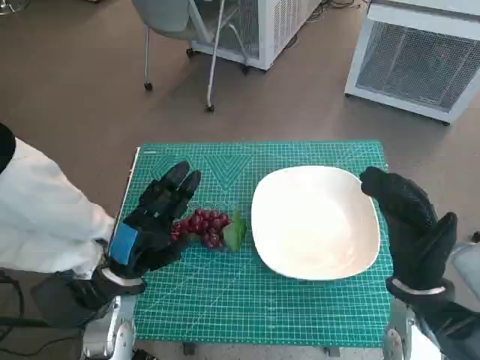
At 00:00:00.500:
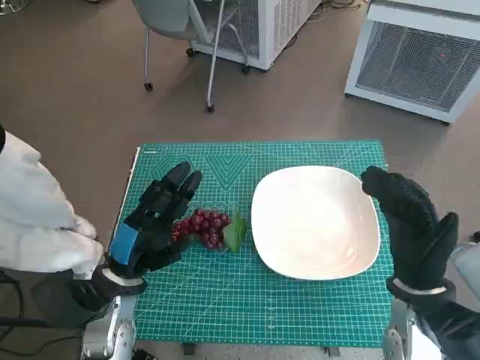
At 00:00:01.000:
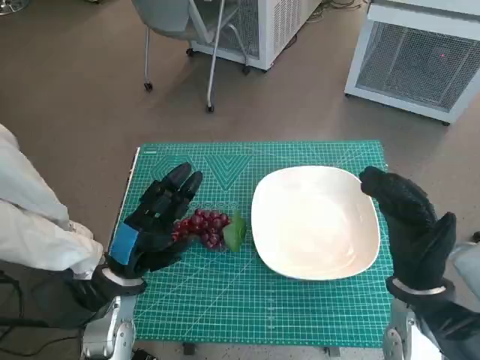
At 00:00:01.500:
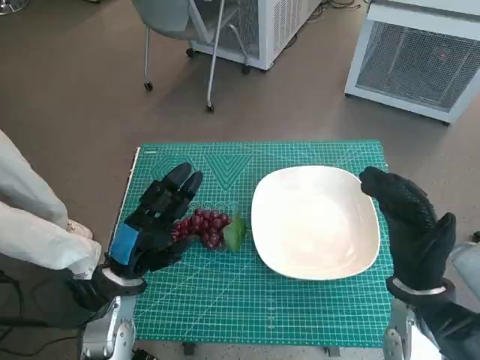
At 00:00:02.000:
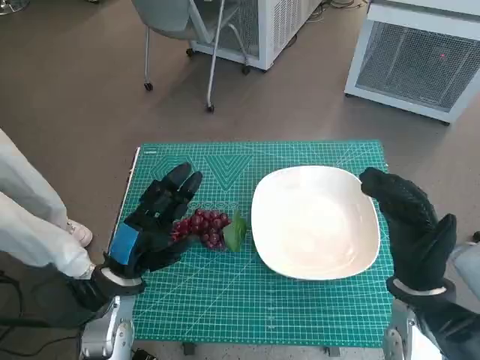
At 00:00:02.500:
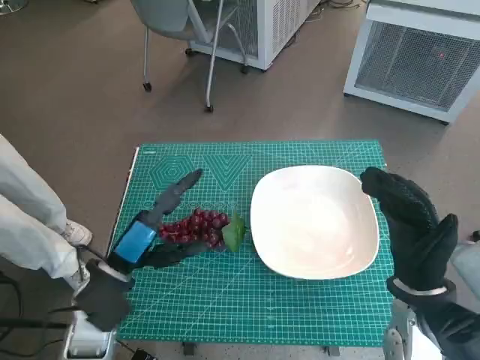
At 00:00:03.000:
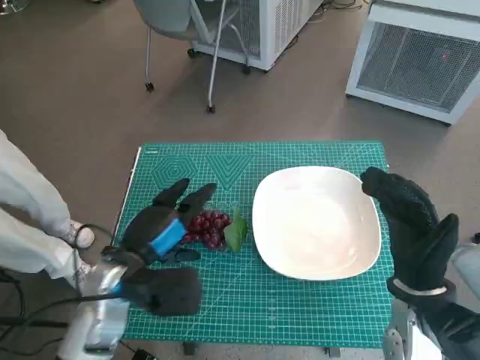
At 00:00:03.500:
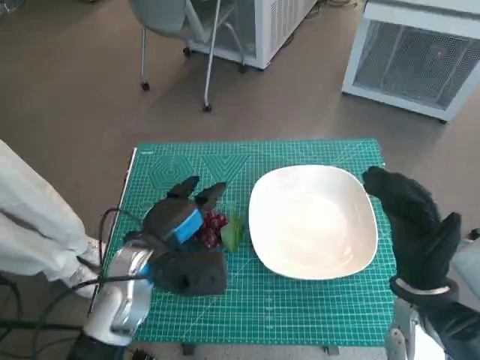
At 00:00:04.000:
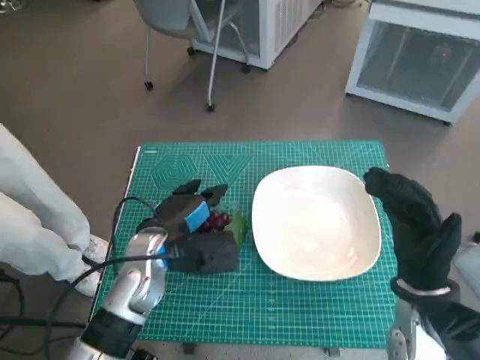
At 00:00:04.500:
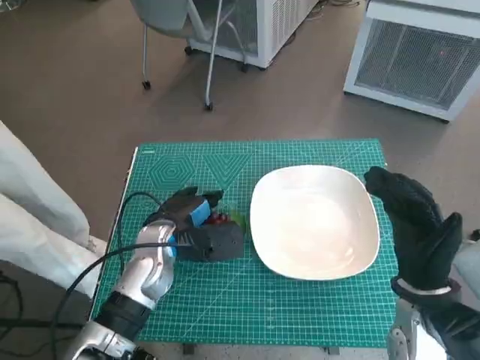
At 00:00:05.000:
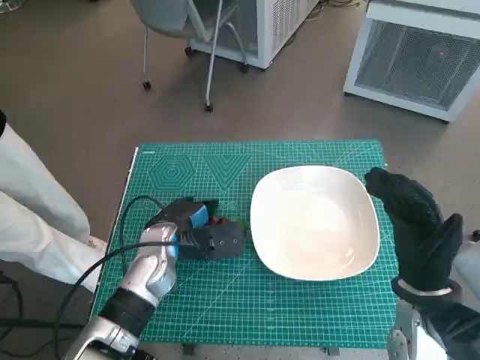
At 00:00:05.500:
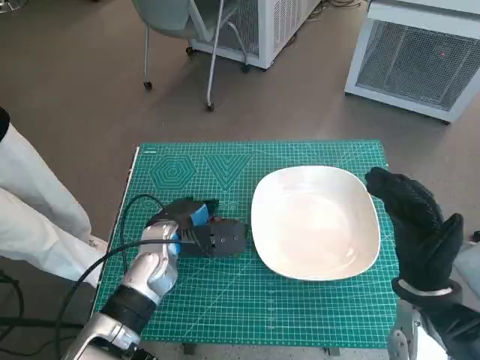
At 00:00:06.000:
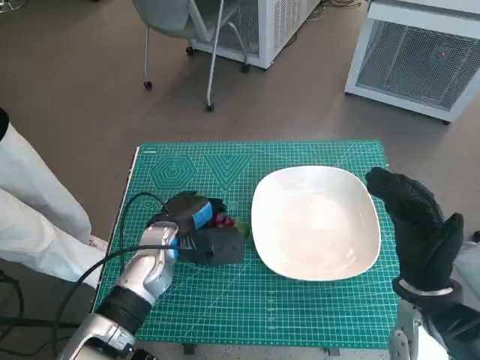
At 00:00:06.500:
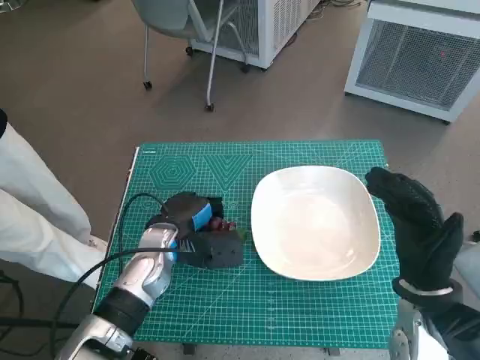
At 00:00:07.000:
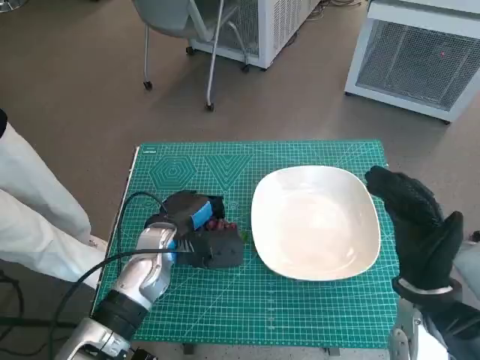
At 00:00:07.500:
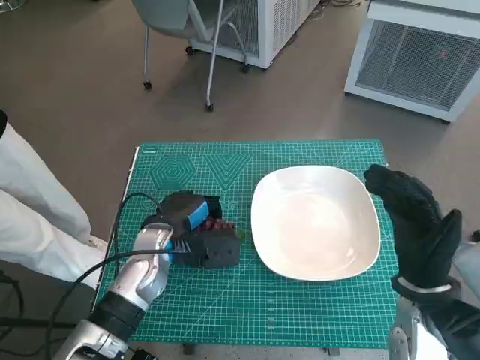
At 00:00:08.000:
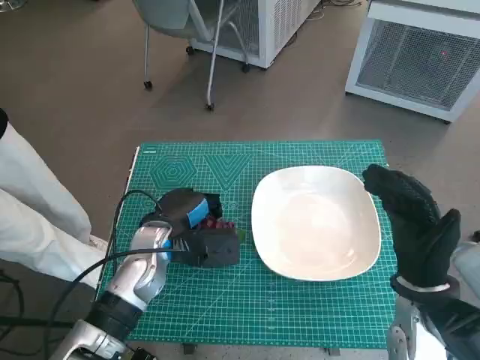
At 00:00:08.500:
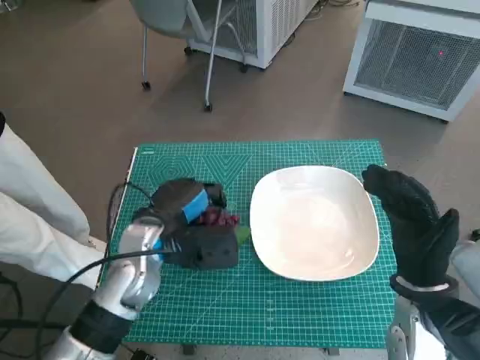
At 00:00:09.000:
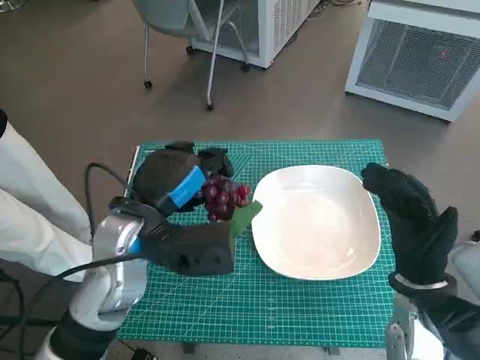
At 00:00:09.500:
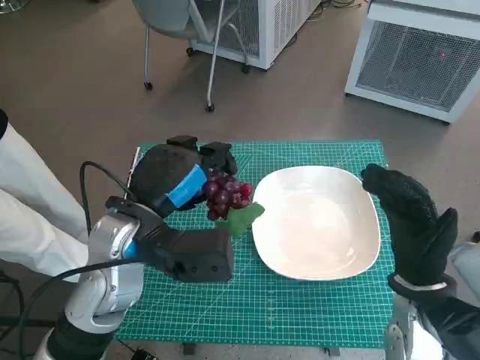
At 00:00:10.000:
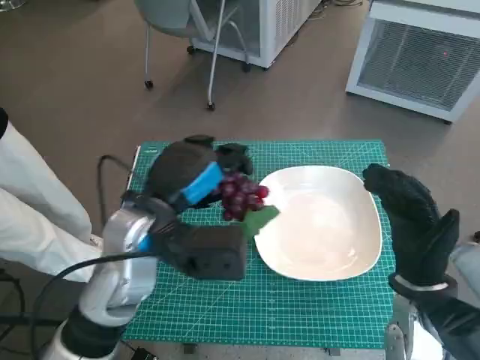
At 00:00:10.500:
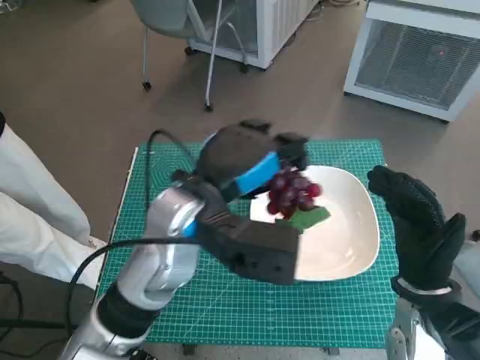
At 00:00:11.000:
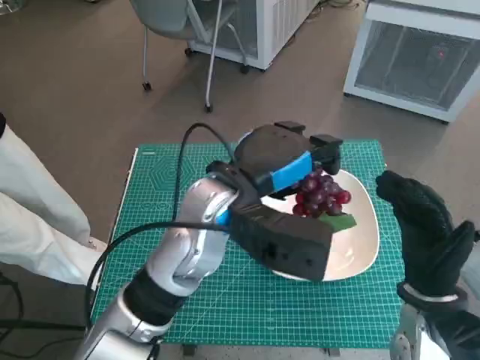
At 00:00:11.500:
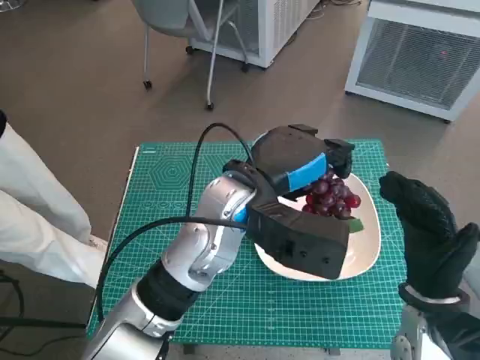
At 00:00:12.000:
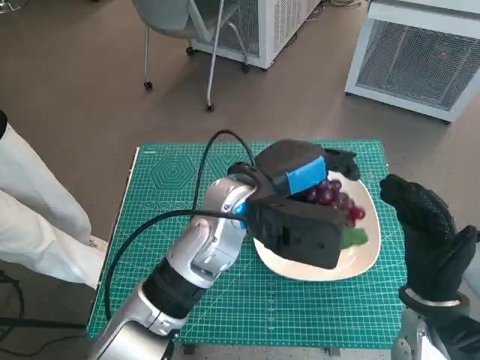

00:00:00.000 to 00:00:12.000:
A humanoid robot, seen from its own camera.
Task of the whole recording: Pick up the grapes and put them on the plate.
Step, 00:00:00.000 to 00:00:05.500: Grasp the grapes with left hand.
00:00:02.000 to 00:00:04.000: The left hand shifts some 10 cm forward and to the right.
00:00:04.000 to 00:00:06.000: The hands stay close to where they were, moving slightly.
00:00:06.000 to 00:00:08.000: The two hands keep their place.
00:00:08.000 to 00:00:10.000: The left hand heads upward, covering approximately 10 cm.
00:00:10.000 to 00:00:12.000: The left hand travels to the right by about 10 cm.

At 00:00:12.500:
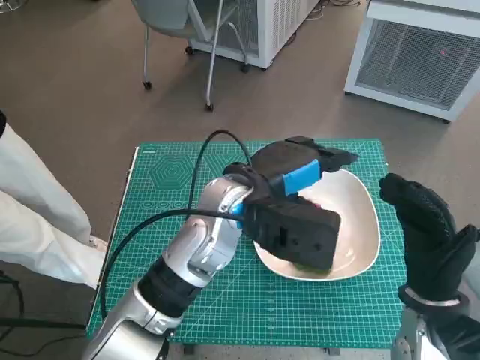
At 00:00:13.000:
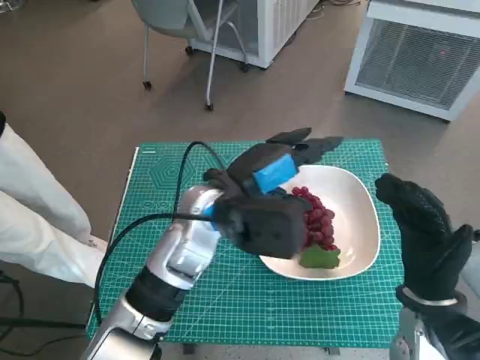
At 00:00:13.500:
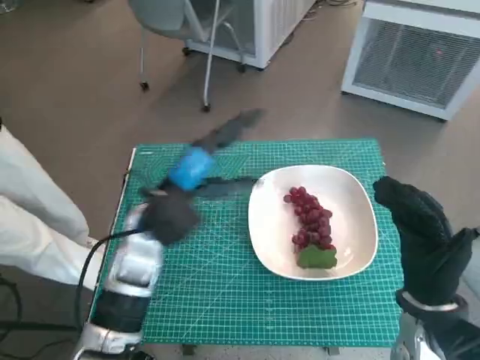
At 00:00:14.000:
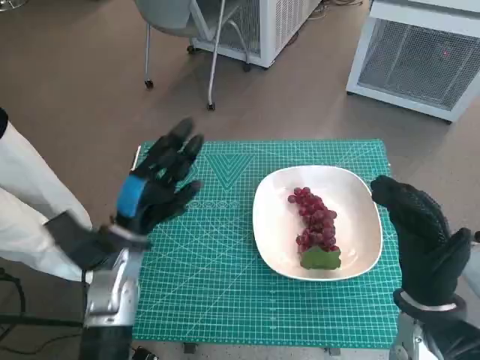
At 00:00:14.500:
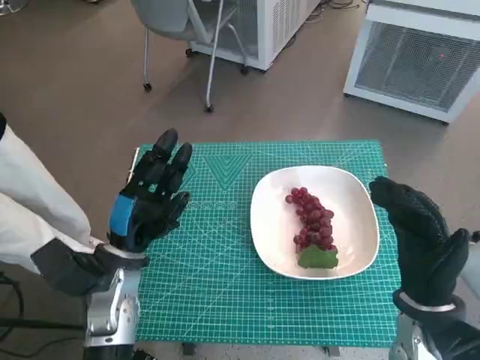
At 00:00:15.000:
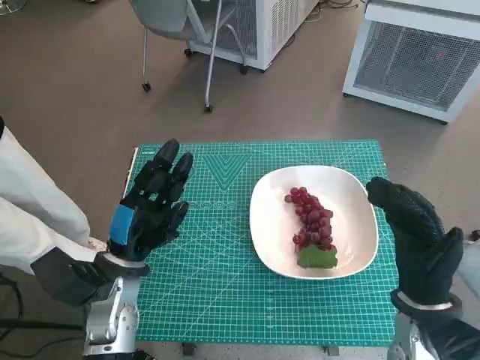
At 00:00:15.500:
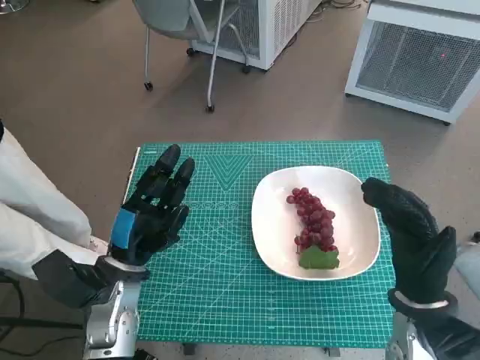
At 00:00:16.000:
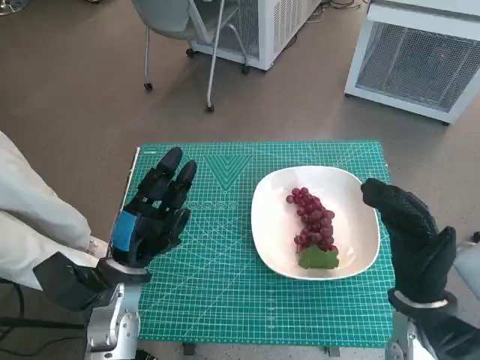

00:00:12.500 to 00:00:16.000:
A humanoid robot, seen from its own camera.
Task of the whole recording: Pick up the grapes and put them on the plate.
00:00:12.500 to 00:00:14.500: The left hand moves to the left and downward, some 20 cm.
00:00:14.500 to 00:00:16.000: The hands move only a little.

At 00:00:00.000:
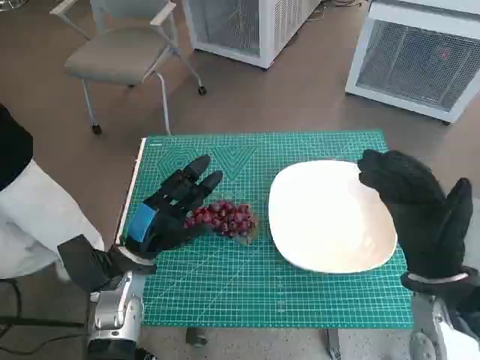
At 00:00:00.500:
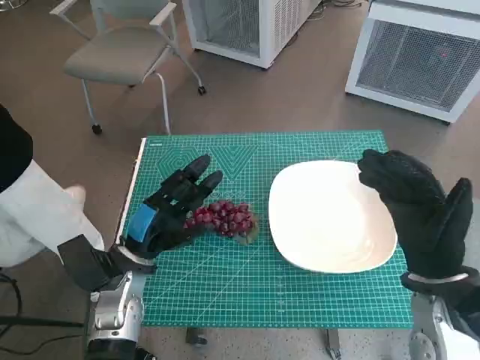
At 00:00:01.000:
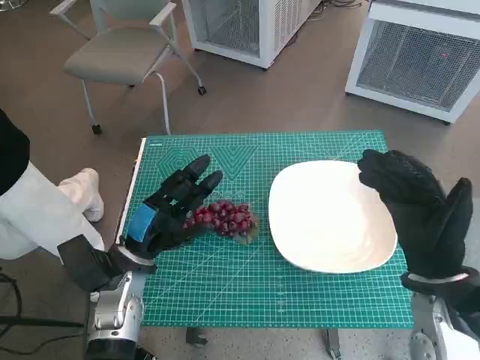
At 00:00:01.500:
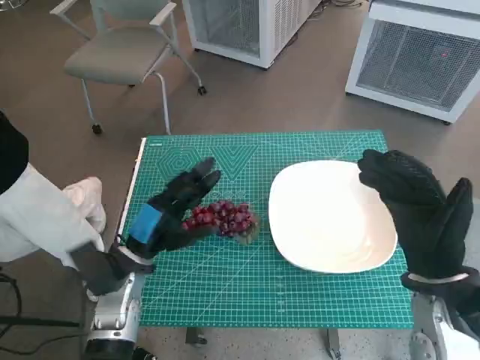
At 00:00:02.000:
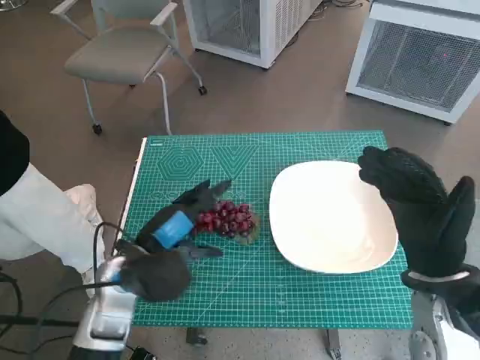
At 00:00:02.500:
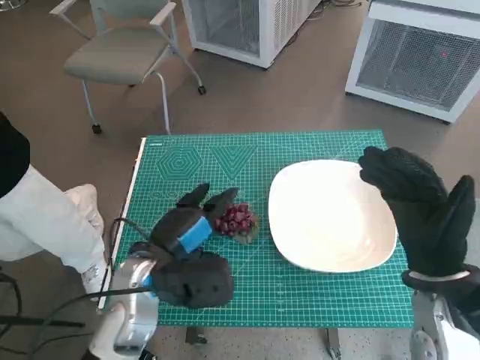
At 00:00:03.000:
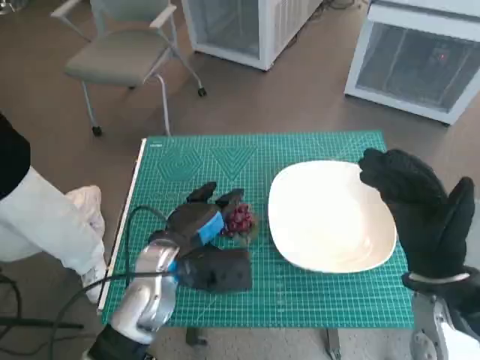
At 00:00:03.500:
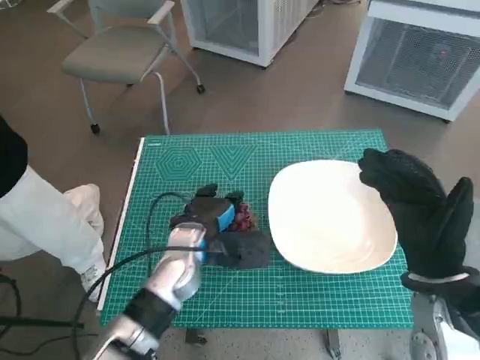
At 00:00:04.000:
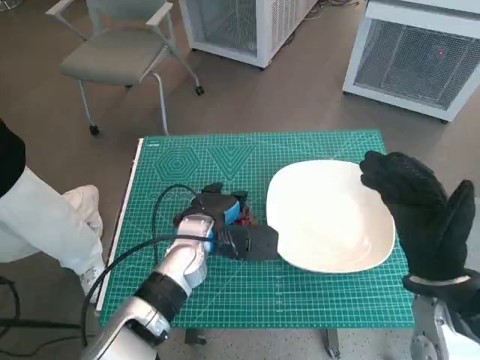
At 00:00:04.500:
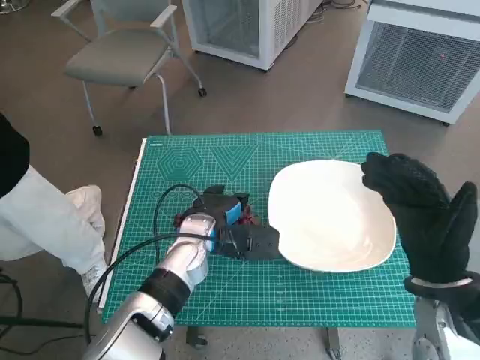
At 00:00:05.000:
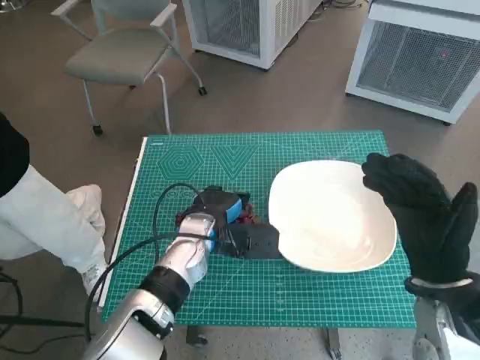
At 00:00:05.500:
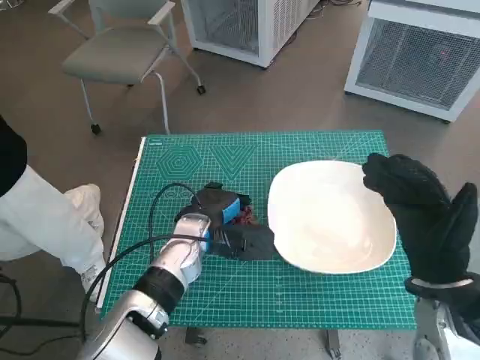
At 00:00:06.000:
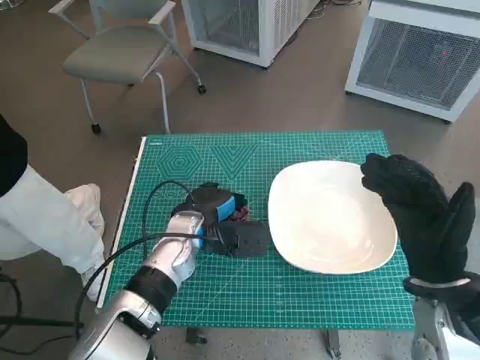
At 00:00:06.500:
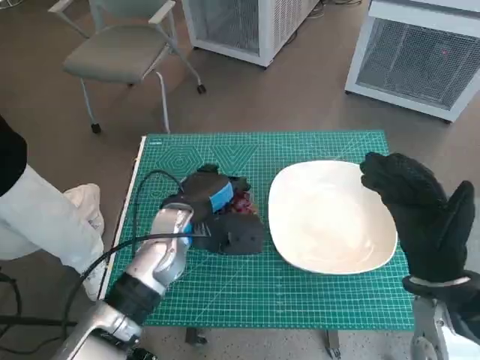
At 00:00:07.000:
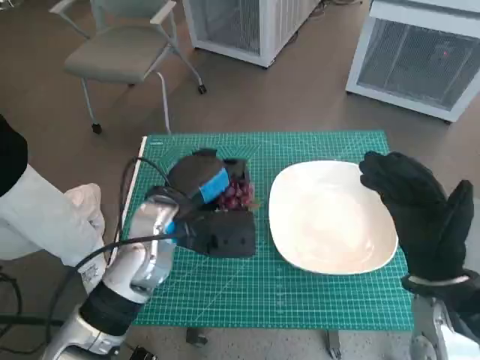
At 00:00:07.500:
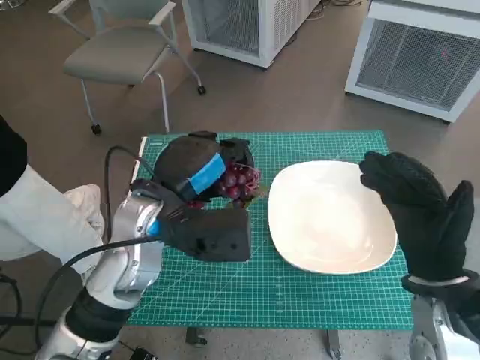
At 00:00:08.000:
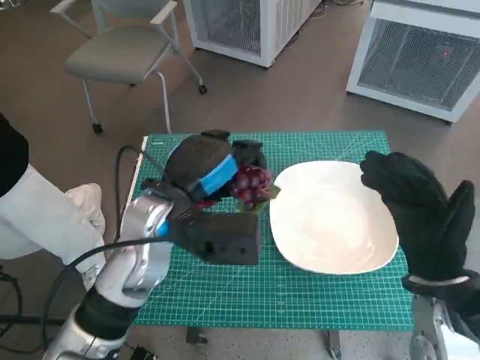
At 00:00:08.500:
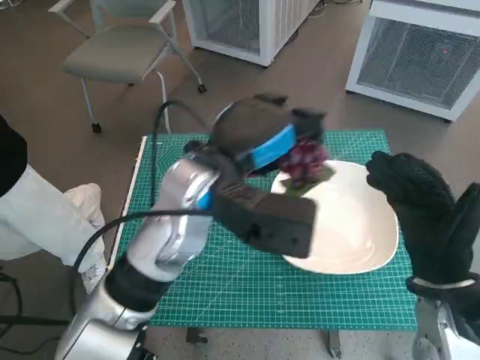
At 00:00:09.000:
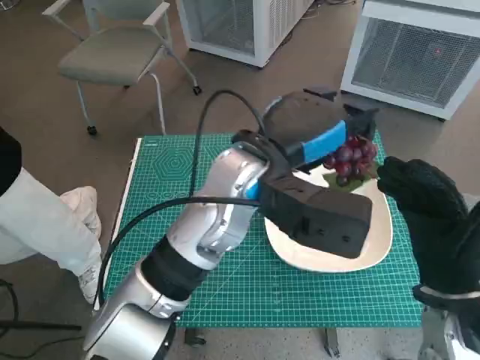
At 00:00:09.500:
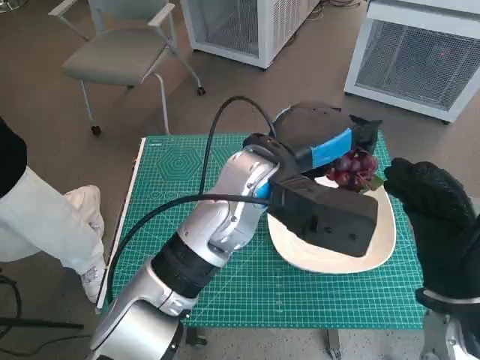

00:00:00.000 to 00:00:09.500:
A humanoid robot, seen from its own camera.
Task of the whole recording: Pick up the grapes and put them on the plate.
Step, 00:00:00.000 to 00:00:05.000: Grasp the grapes with left hand.
00:00:02.000 to 00:00:04.000: The left hand is displaced to the right and forward by some 10 cm.
00:00:04.000 to 00:00:05.500: The hands stay close to where they were, moving slightly.
00:00:05.500 to 00:00:07.500: The left hand shifts some 10 cm upward.
00:00:07.500 to 00:00:09.500: The left hand is displaced to the right by about 10 cm.
